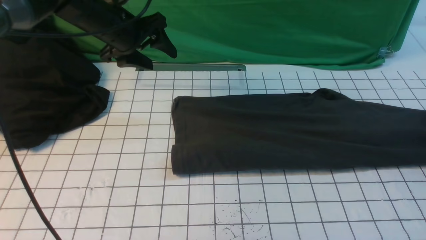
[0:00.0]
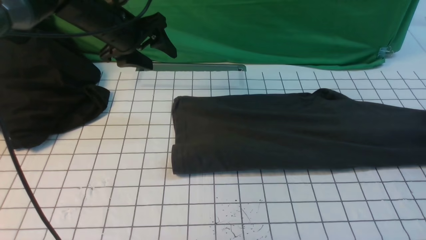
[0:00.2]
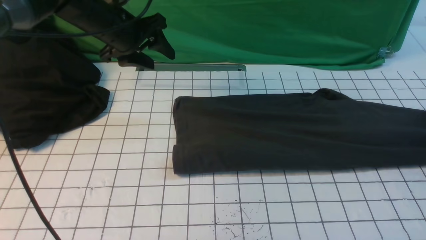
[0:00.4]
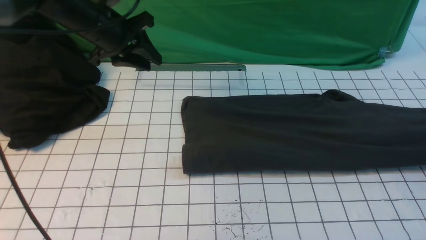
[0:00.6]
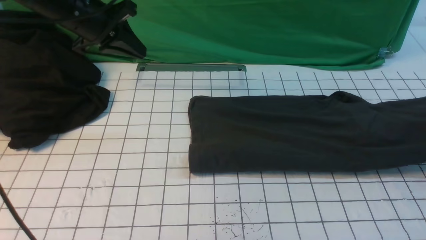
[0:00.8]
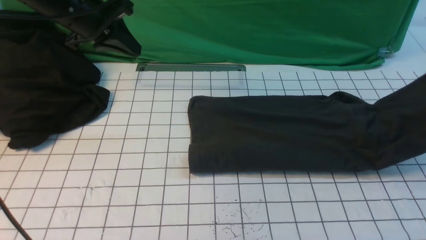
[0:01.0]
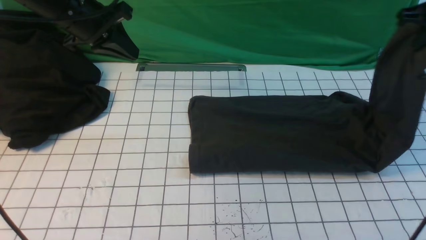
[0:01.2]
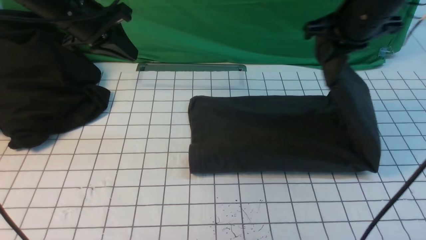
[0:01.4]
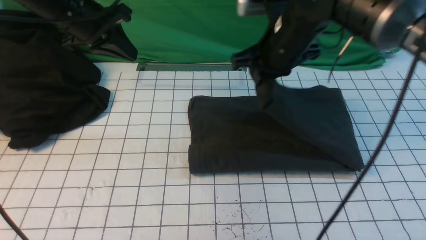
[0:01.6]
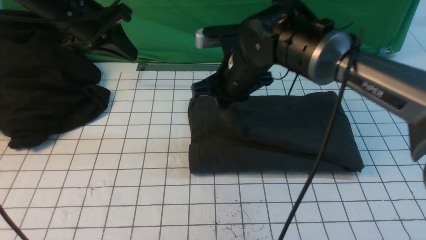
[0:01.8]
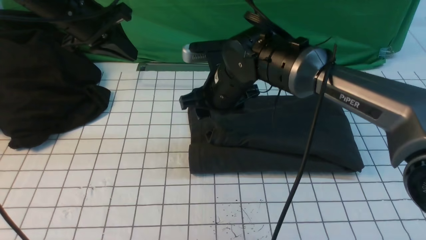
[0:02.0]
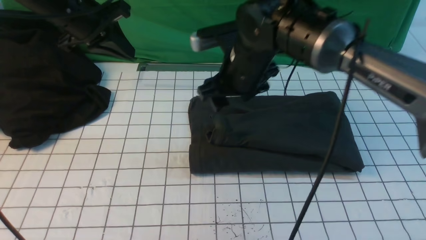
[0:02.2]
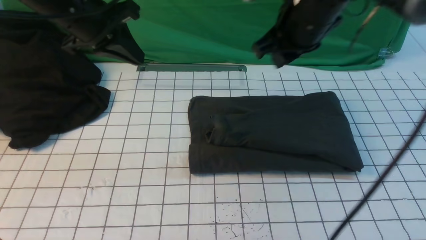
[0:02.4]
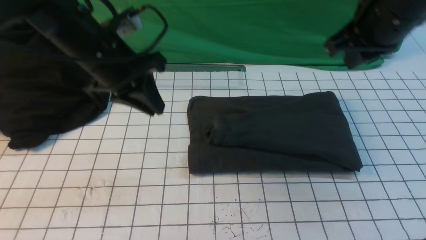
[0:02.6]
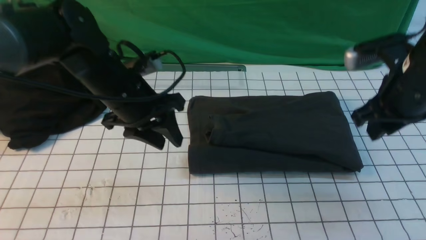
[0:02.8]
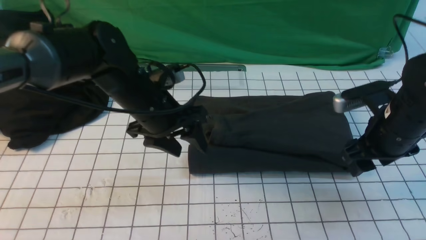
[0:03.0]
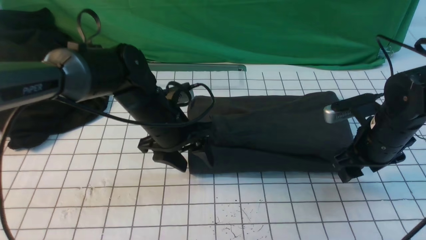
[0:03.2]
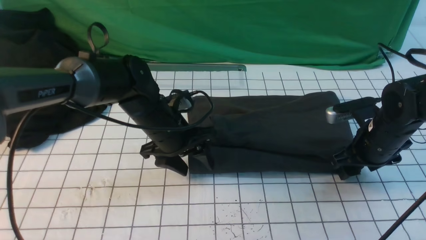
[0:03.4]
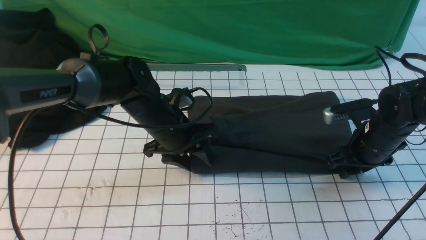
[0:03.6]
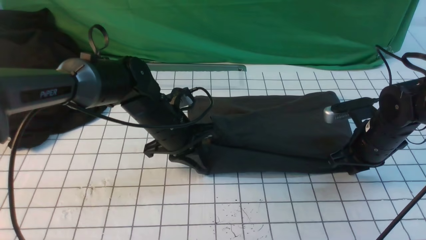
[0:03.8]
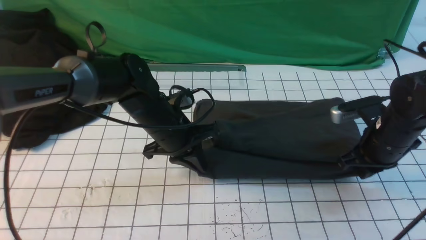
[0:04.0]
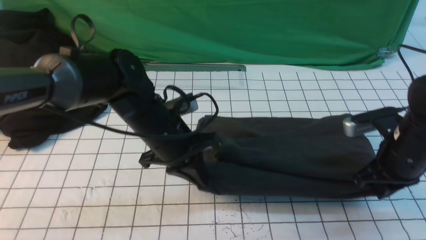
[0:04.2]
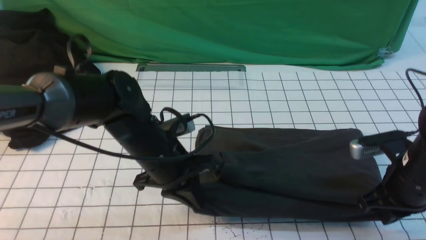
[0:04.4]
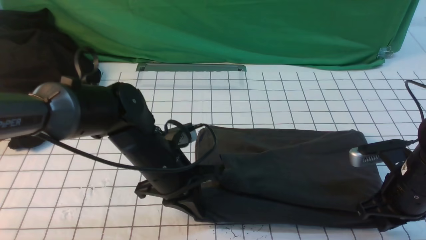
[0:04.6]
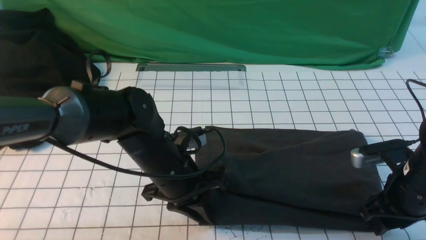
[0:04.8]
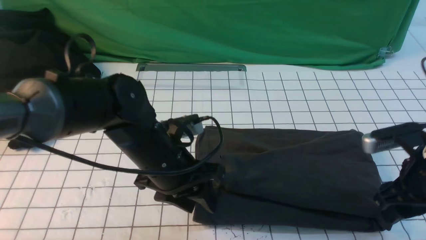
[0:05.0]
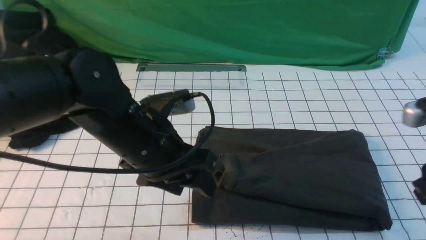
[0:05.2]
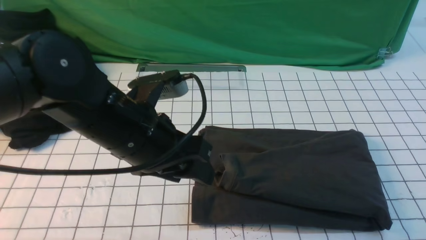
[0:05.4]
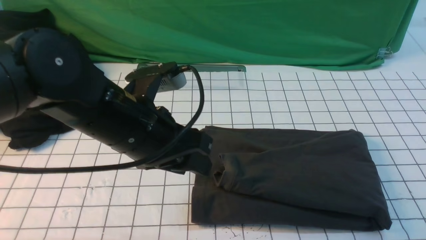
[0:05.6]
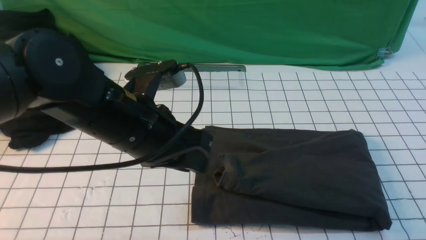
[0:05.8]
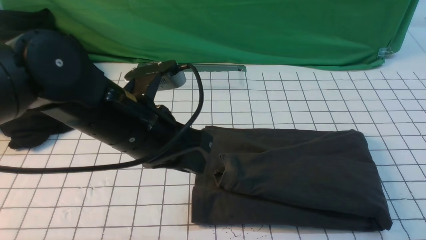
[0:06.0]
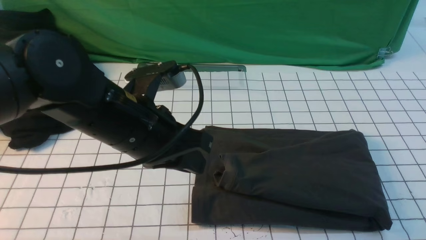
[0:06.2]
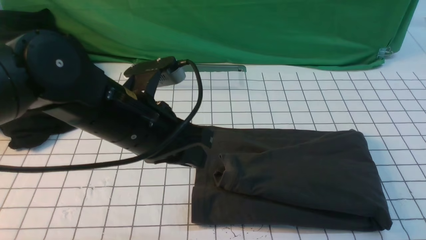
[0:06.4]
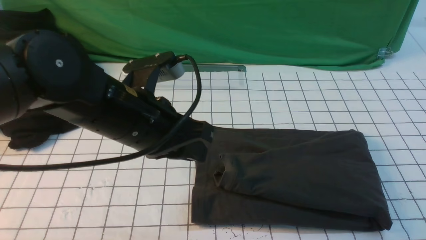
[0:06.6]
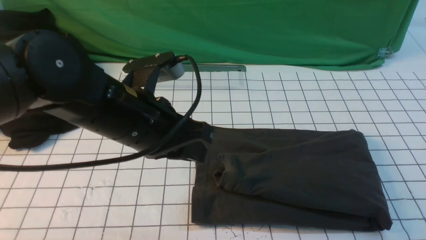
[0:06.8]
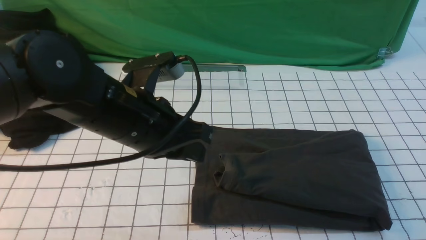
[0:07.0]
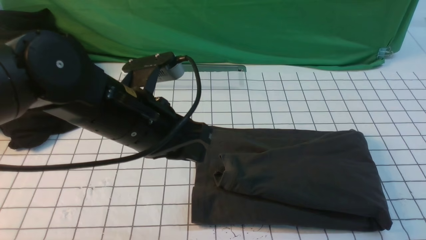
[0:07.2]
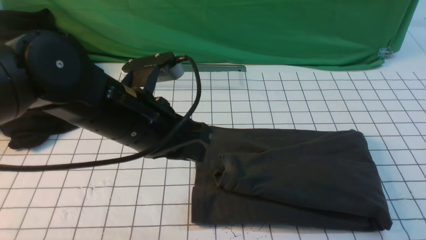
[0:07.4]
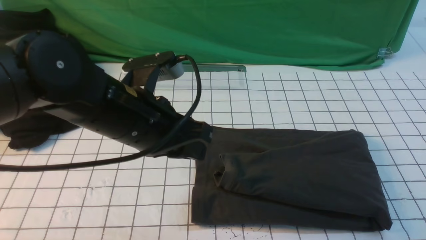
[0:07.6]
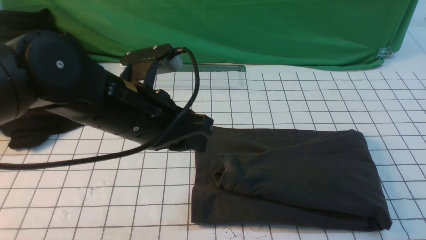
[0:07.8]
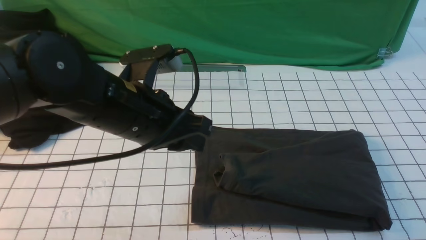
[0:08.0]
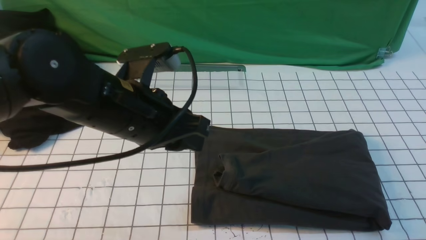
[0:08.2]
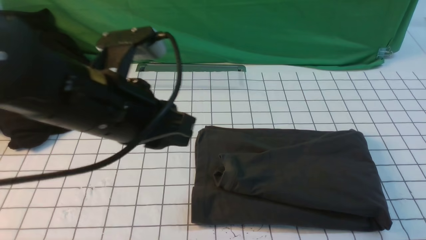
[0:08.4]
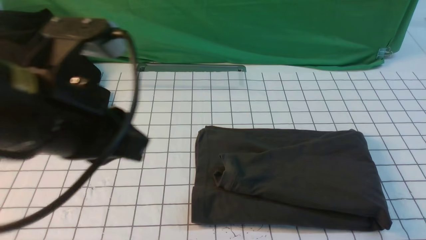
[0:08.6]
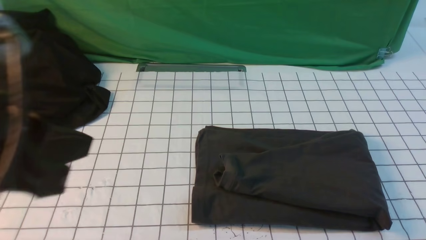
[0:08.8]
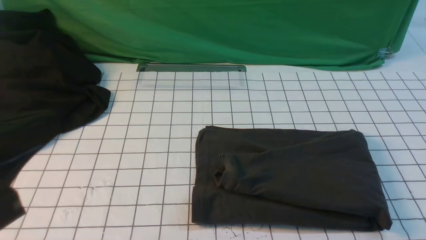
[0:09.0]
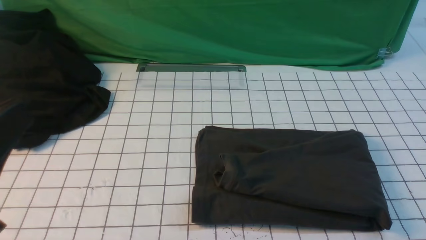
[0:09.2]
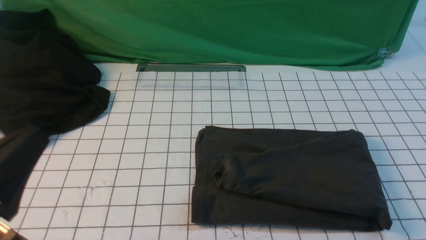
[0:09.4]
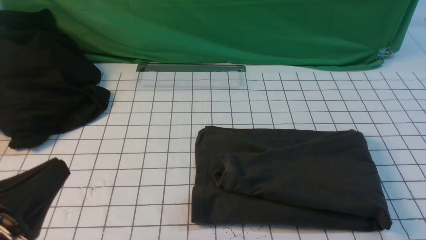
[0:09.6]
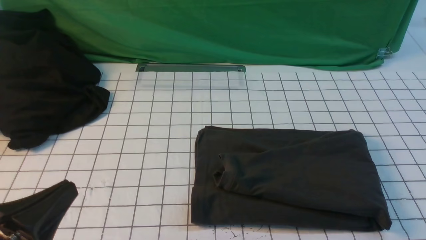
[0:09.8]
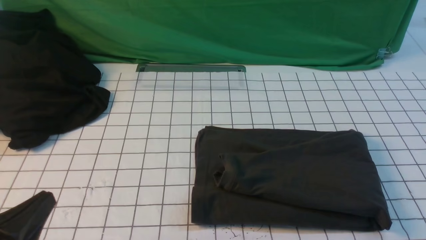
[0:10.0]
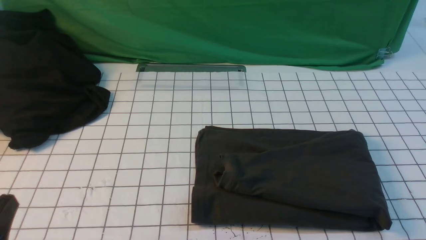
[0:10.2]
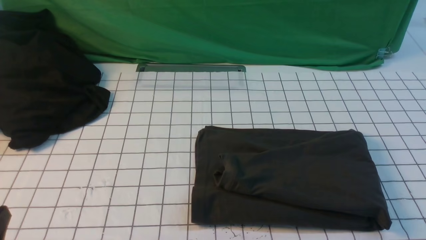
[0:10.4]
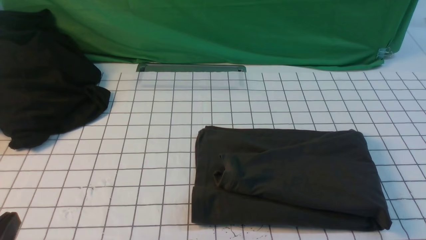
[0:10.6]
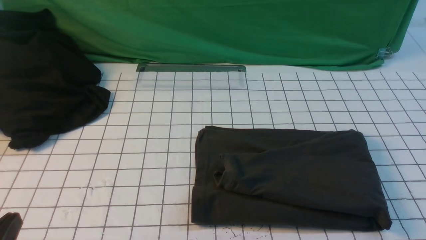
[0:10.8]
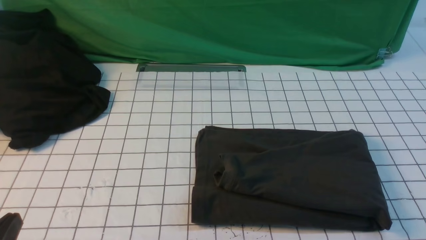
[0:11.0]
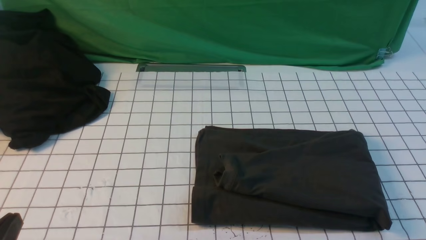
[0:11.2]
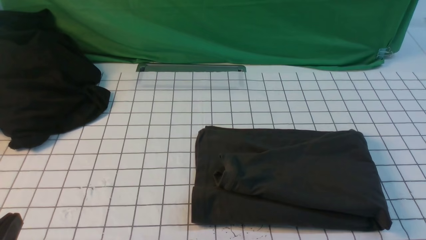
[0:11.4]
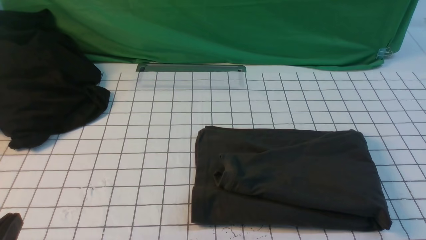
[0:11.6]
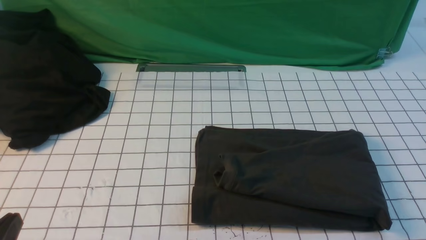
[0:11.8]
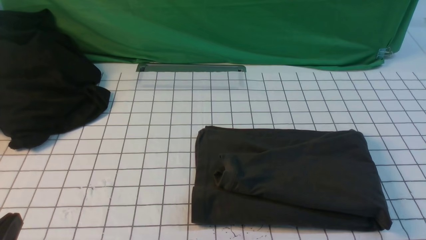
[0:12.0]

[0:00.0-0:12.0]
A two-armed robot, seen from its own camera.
Step, 0:00.8 to 0:02.2: use the right arm to drag the right edge of the fabric to the left and folds it over the left edge.
0:00.0 to 0:01.6: The right gripper goes about 40 cm to the left, and closes its fingers, while the left gripper changes place by approximately 5 cm, and closes its fingers.
0:01.6 to 0:03.0: The left gripper heads to the right, downward and backward, covering some 20 cm, and opens its fingers; the right gripper is displaced to the right, backward and downward by about 20 cm, and opens its fingers.
0:03.0 to 0:04.4: The grippers both shift backward by roughly 5 cm. The left gripper closes its fingers. Meanwhile the right gripper closes.
0:04.4 to 0:06.0: The right gripper shifts about 30 cm backward and upward, and opens and closes again. Meanwhile the left gripper travels upward and backward by roughly 10 cm, and opens, then closes again.
0:06.0 to 0:07.6: The grippers stay close to where they were, moving slightly.
0:07.6 to 0:09.0: The right gripper travels downward by approximately 10 cm; the left gripper heads backward and to the left, covering about 20 cm.
0:09.0 to 0:10.4: The left gripper goes some 15 cm downward.
0:10.4 to 0:12.0: The two grippers keep their place.

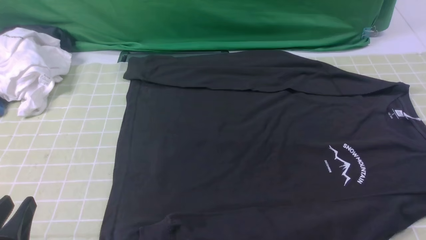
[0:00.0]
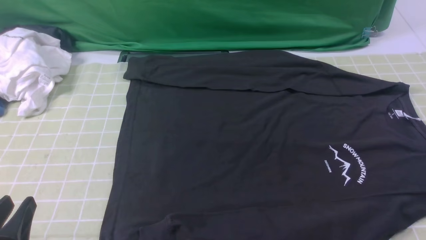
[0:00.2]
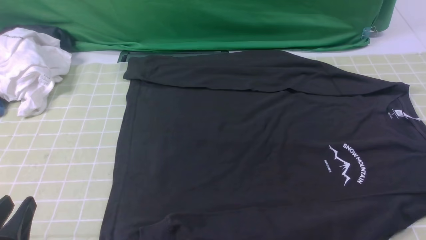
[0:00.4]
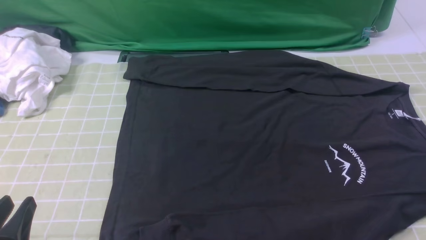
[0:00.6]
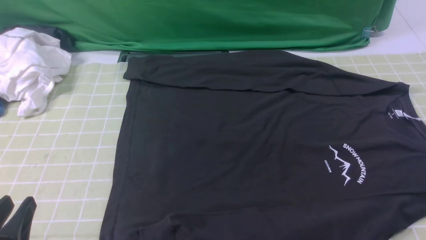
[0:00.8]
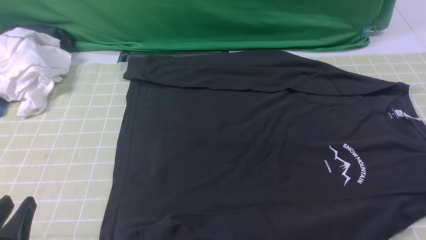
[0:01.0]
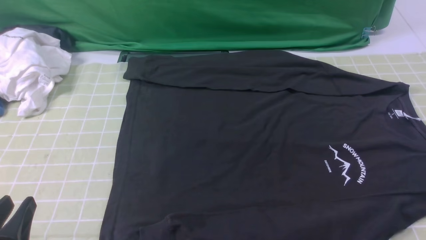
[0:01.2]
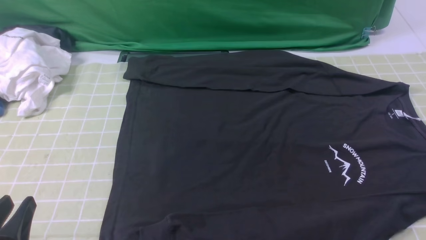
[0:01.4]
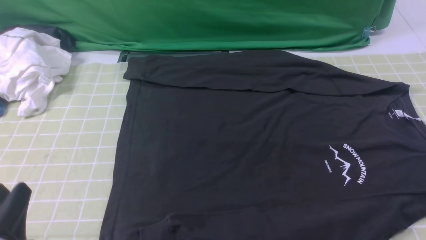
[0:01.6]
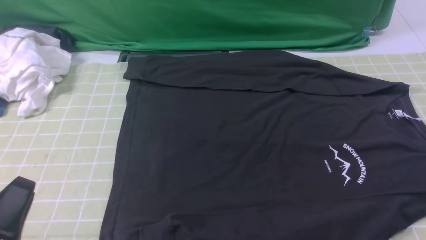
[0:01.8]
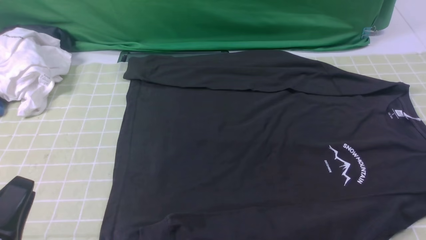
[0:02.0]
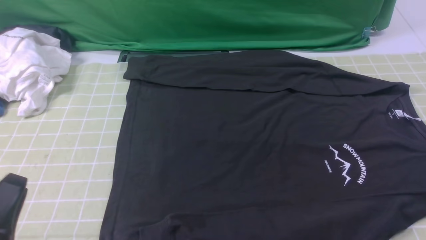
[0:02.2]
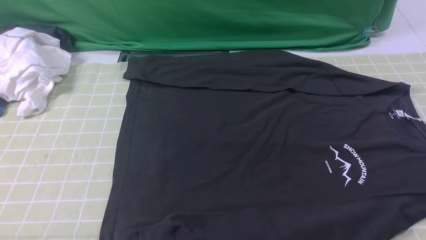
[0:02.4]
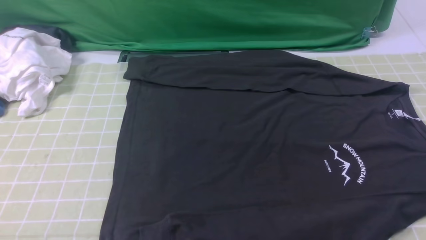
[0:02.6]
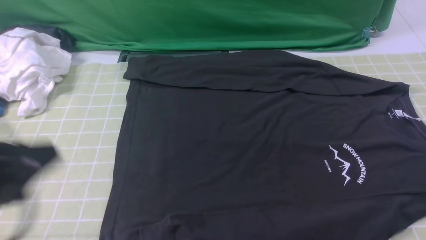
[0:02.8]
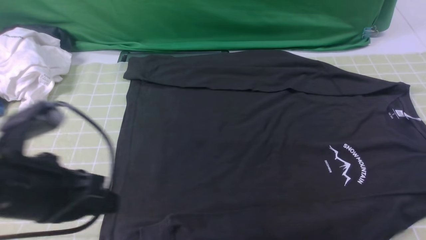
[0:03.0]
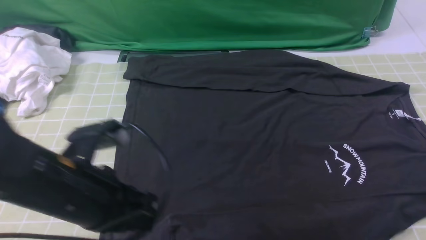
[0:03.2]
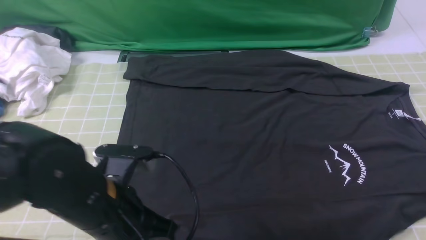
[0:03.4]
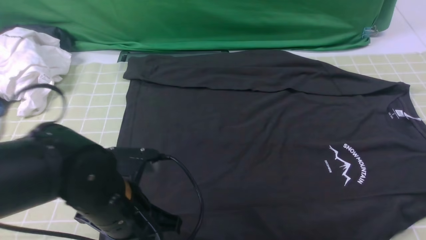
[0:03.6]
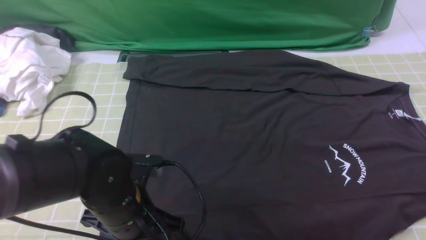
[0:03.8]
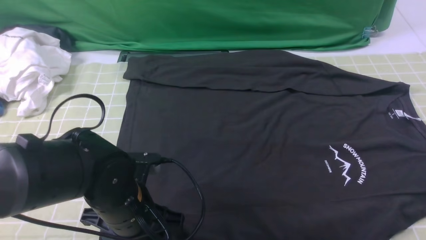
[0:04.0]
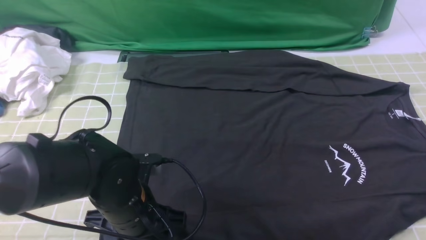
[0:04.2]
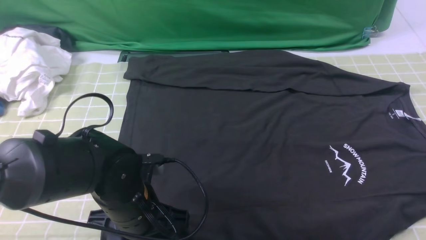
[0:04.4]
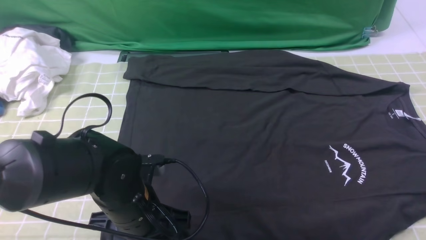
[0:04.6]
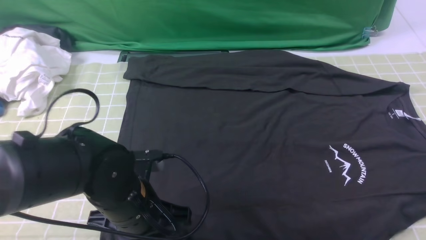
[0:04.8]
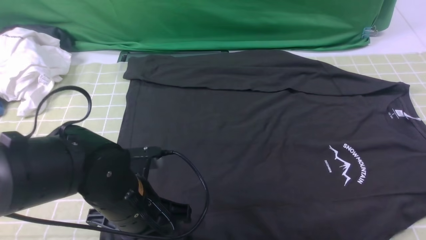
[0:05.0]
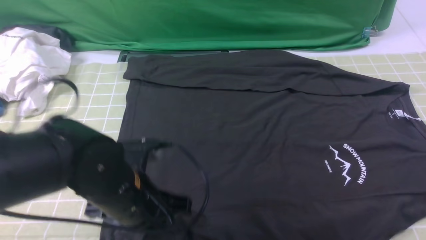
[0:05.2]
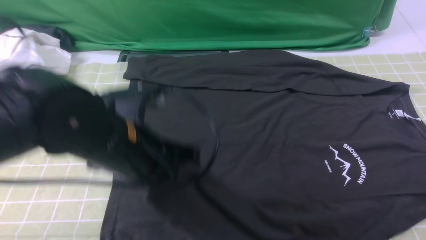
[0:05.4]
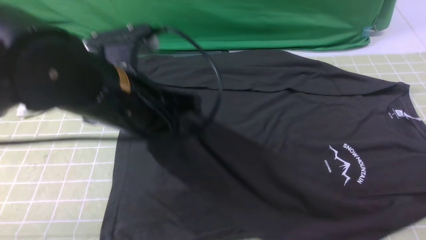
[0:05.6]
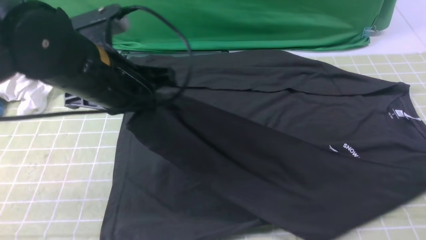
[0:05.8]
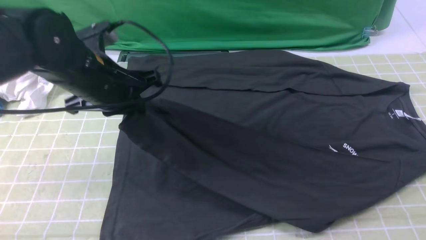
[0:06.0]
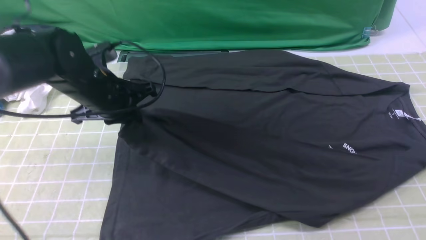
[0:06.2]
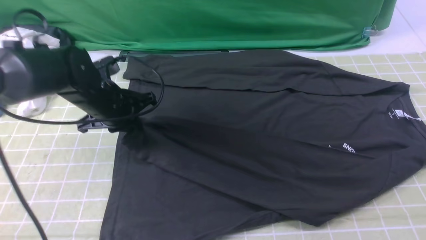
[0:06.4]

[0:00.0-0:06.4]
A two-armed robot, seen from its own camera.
Step, 0:00.0 to 0:05.0: use the left arm to clamp the cuff closest to it.
0:01.6 to 0:03.2: The left gripper travels forward and to the right by roughly 15 cm, and closes.
0:03.2 to 0:04.8: The left gripper heads downward, covering some 10 cm, and opens, then closes once more.
0:04.8 to 0:06.4: The left gripper heads forward and to the left, covering some 20 cm.
